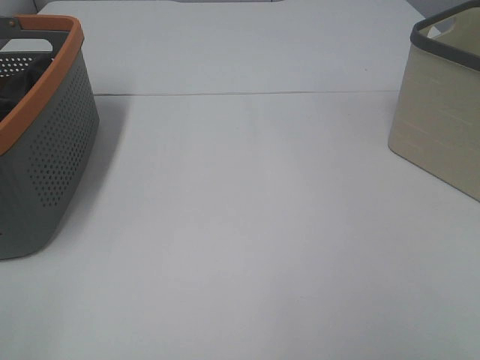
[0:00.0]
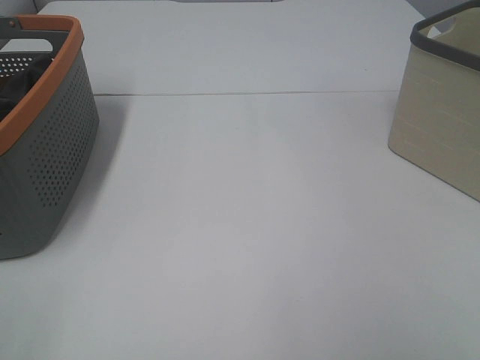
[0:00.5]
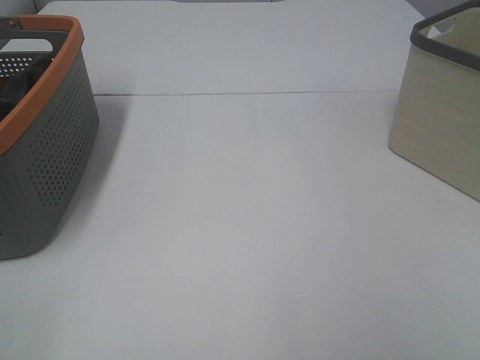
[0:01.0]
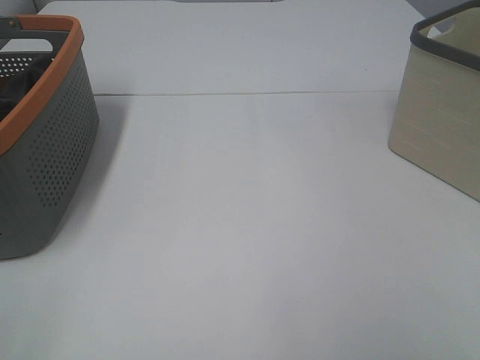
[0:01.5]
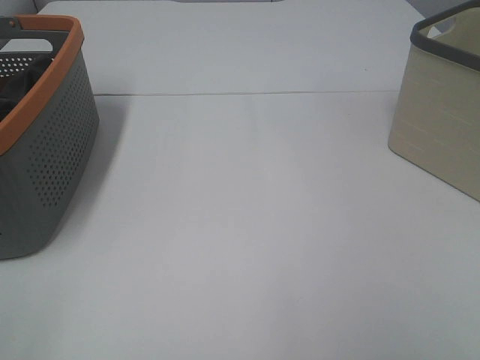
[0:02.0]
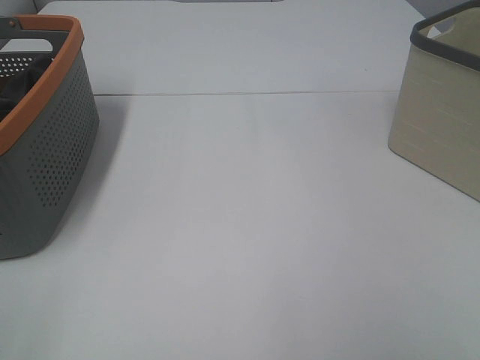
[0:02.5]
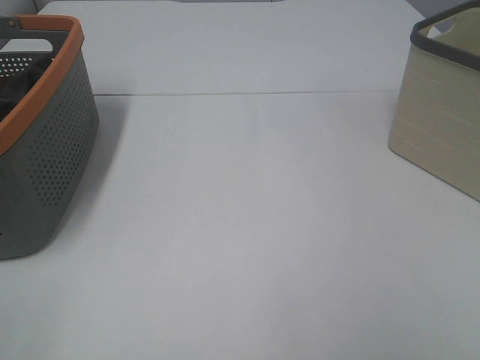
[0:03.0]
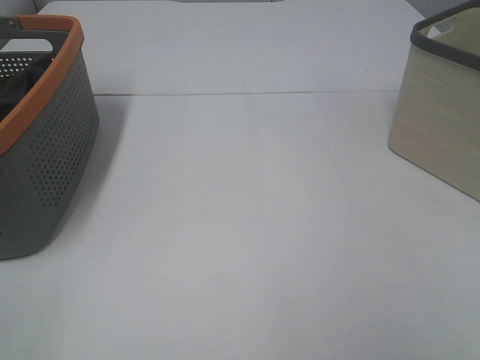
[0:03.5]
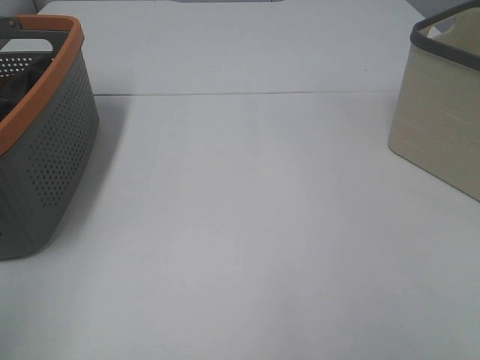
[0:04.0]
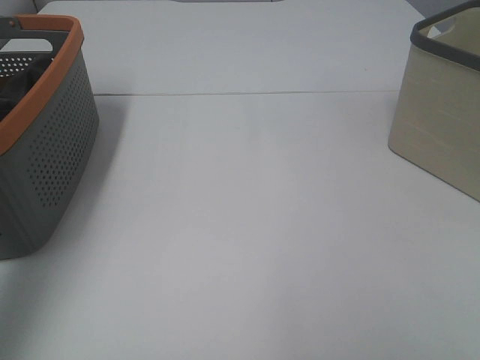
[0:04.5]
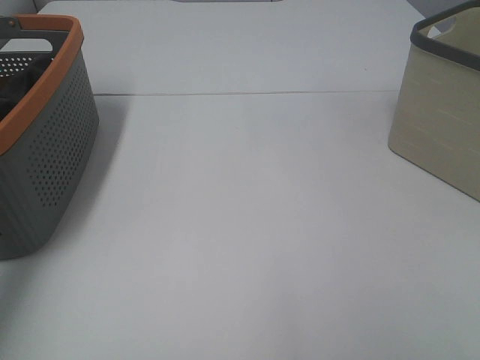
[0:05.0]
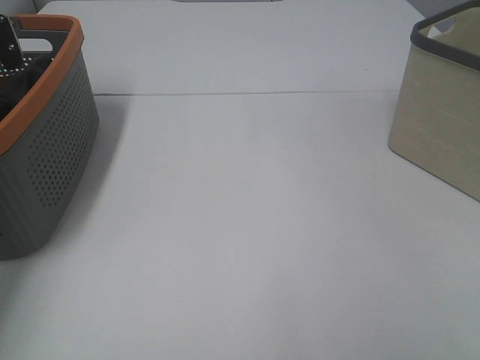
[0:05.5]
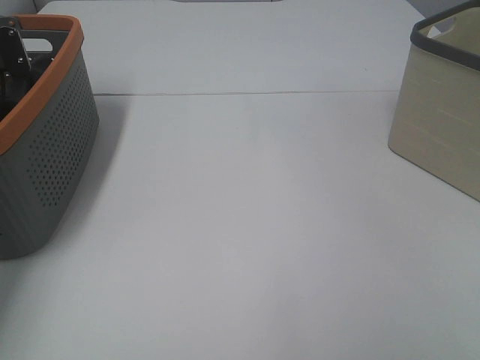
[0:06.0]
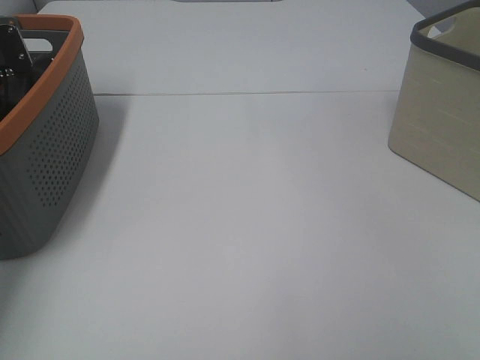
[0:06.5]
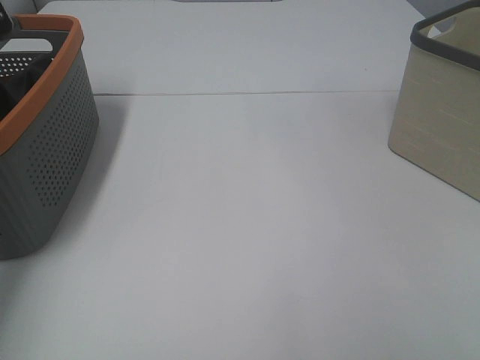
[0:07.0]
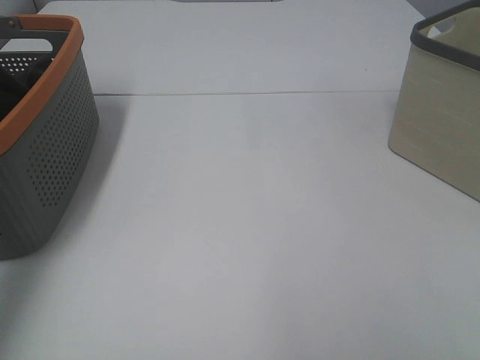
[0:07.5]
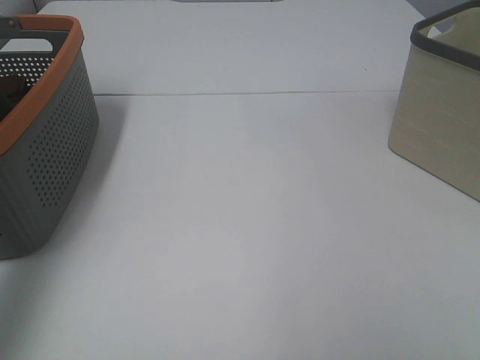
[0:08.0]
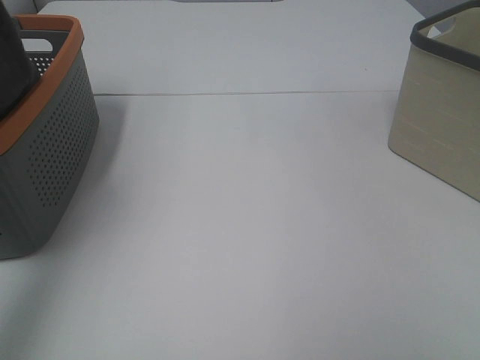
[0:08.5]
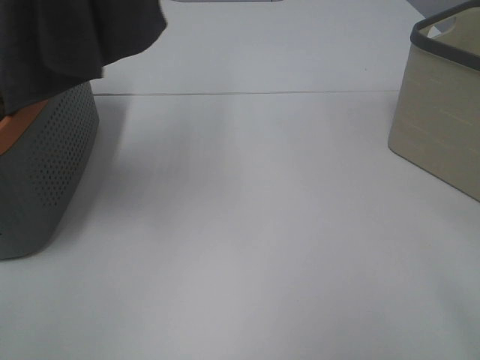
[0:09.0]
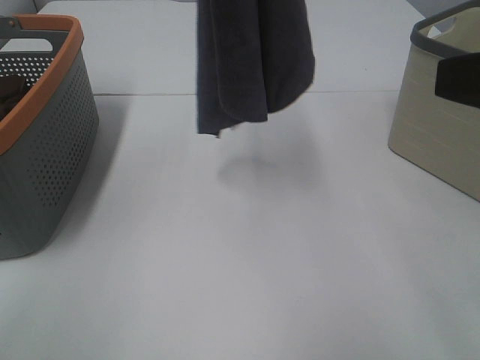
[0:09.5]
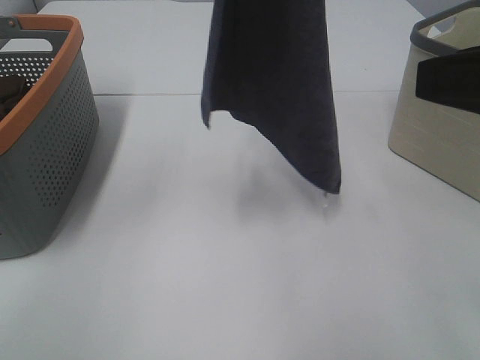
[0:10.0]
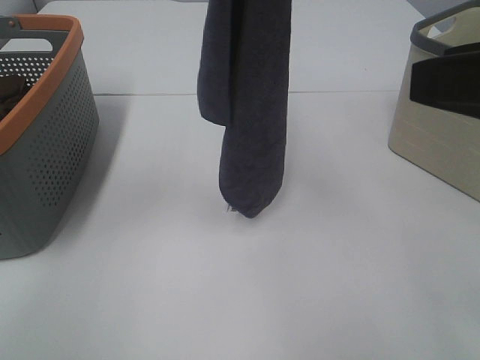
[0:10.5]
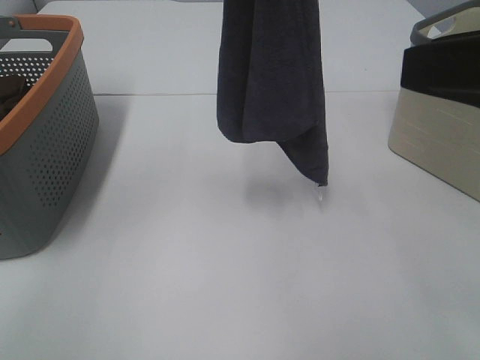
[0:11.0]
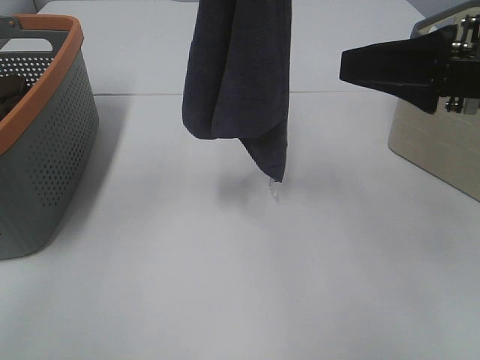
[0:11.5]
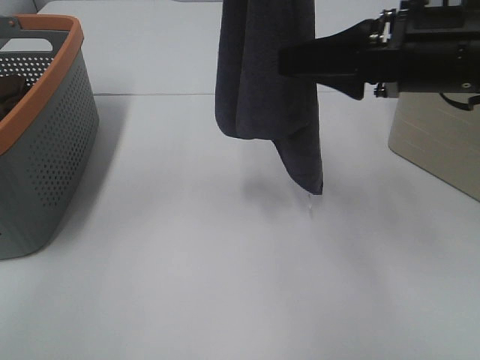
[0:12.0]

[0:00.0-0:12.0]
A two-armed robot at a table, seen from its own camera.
Task of the whole recording: Remove the towel and place it.
0:00.0 to 0:02.0: Both grippers stay about where they are.
0:04.0 to 0:06.0: The left gripper shifts some 40 cm forward and downward, and closes.
0:06.0 to 0:08.0: The left gripper moves upward and backward, roughly 35 cm, and closes its fingers.
0:08.0 to 0:10.0: The left gripper shifts about 30 cm to the right, while the right gripper goes roughly 15 cm forward.
0:10.0 to 0:12.0: The right gripper goes approximately 15 cm forward, downward and to the left.

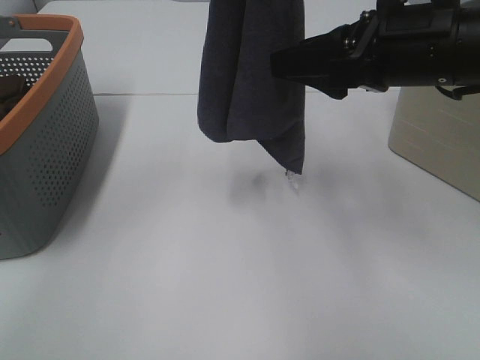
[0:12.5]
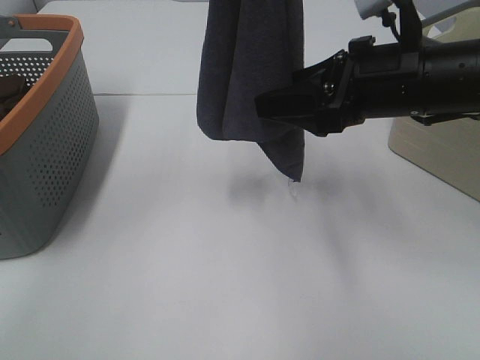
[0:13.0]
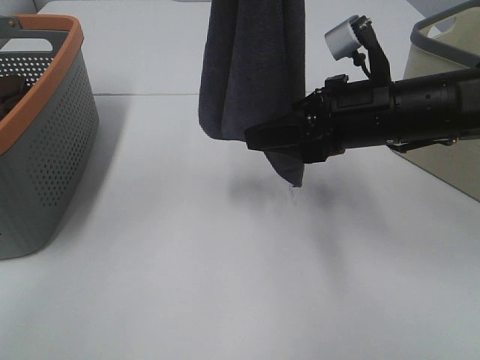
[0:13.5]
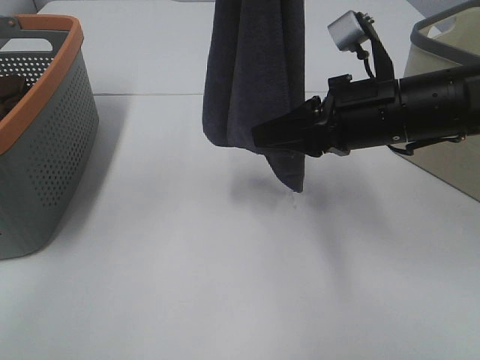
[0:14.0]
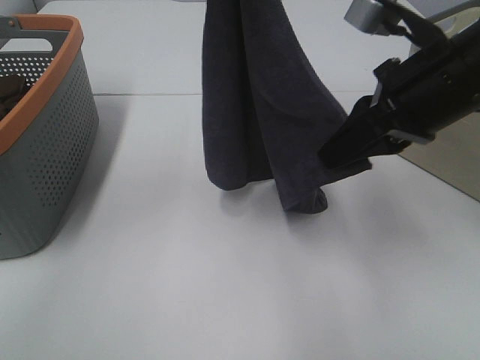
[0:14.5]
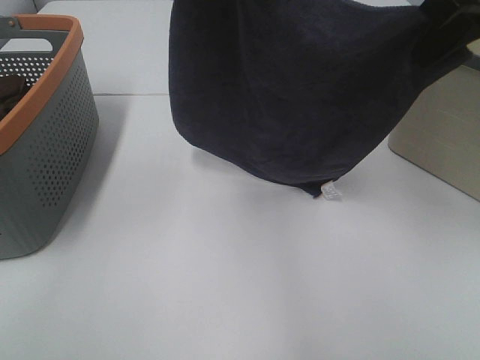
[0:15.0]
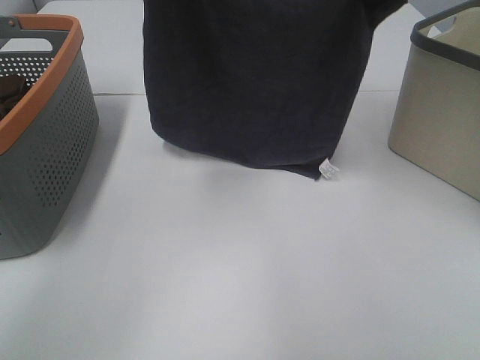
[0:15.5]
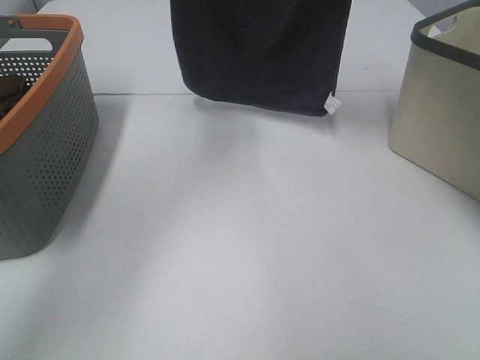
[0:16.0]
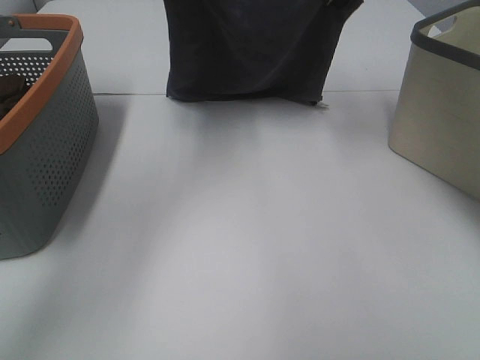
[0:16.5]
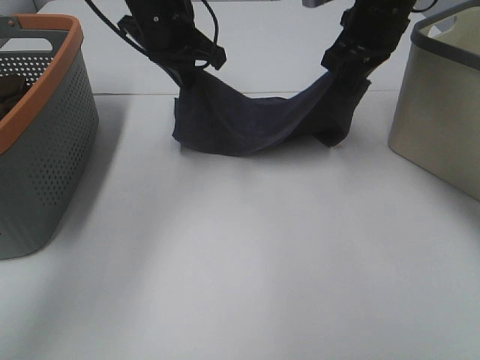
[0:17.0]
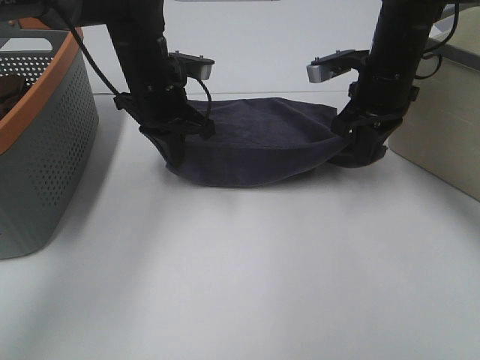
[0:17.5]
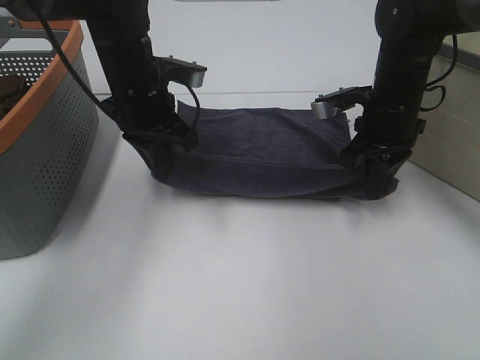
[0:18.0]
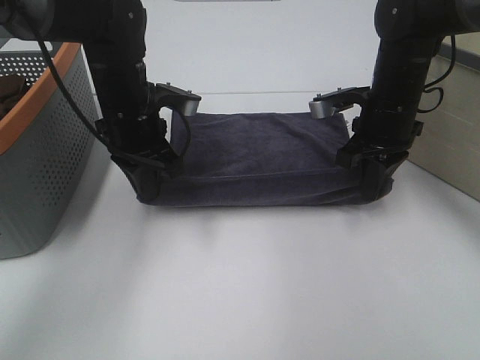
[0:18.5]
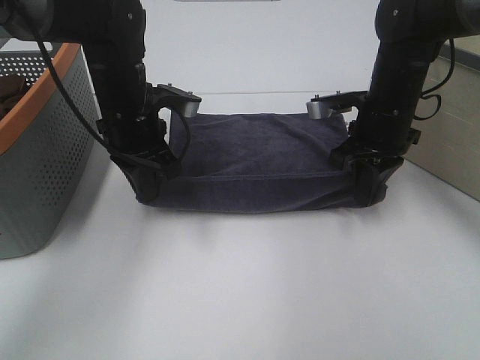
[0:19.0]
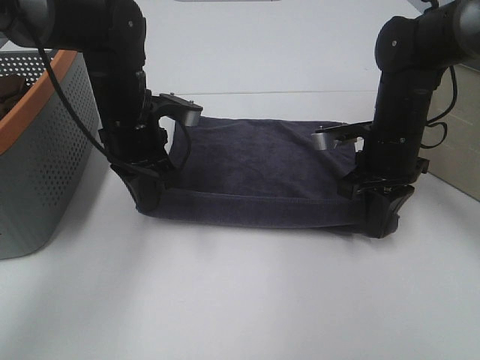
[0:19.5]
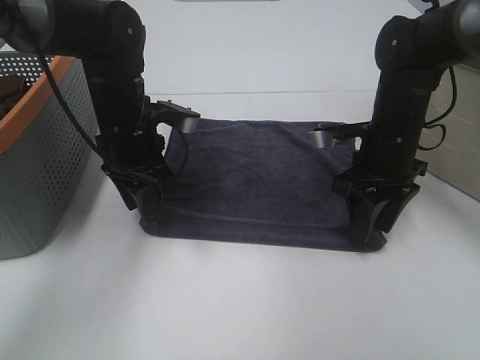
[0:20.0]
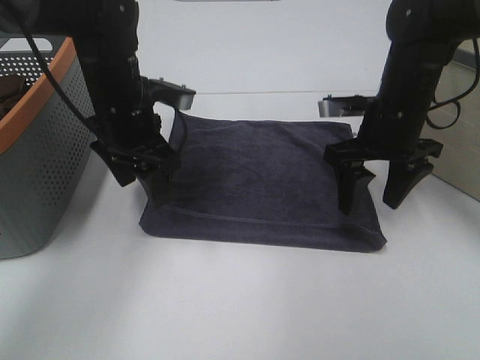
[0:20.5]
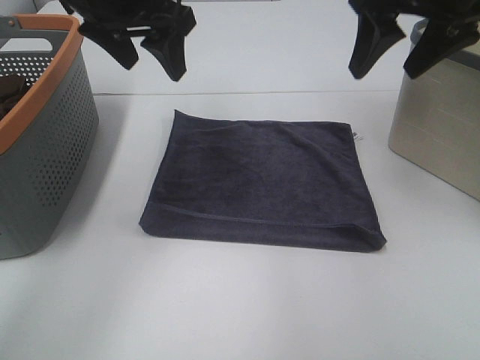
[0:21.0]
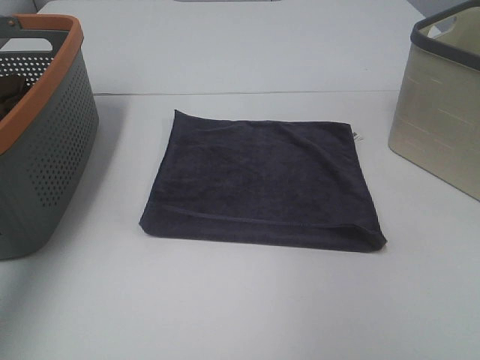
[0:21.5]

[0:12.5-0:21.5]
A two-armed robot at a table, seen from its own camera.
Task of the whole recording: Remove the towel and place it.
Step, 0:13.0 to 0:16.0: Left hand: spread the grey towel flat on the table.
Step, 0:13.0 to 0:16.0: Right hand: spread the grey towel flat on the table.
0:12.5 to 0:14.5: The right gripper closes its fingers, while the left gripper travels downward by approximately 5 cm.
0:14.5 to 0:17.0: The right gripper shifts approximately 20 cm forward. The left gripper goes about 25 cm downward and forward.
0:17.0 to 0:19.5: The two grippers go approximately 15 cm downward and backward.
0:19.5 to 0:21.5: The left gripper shifts some 35 cm upward and to the left, and opens up. The right gripper travels upward and to the right by about 30 cm, and opens.

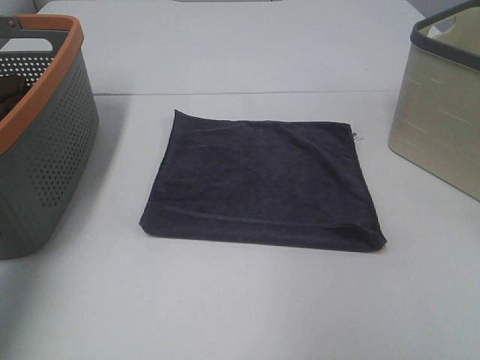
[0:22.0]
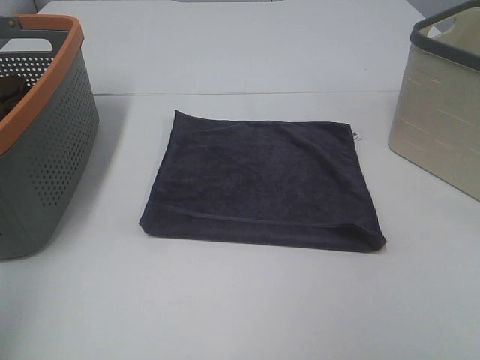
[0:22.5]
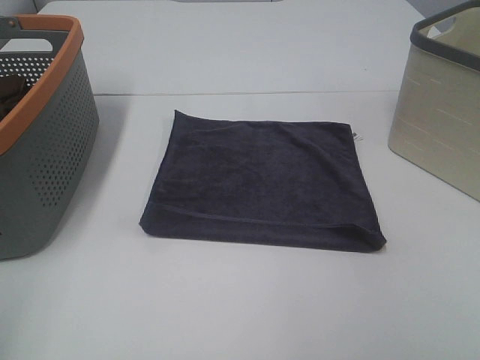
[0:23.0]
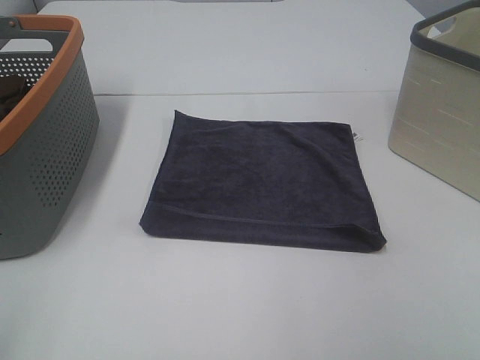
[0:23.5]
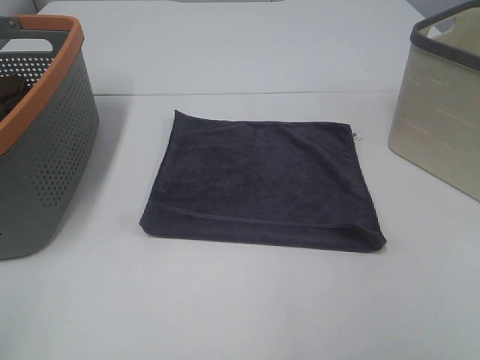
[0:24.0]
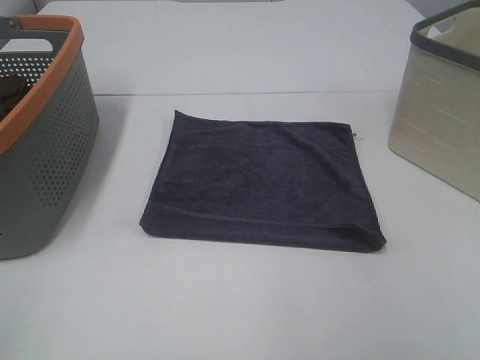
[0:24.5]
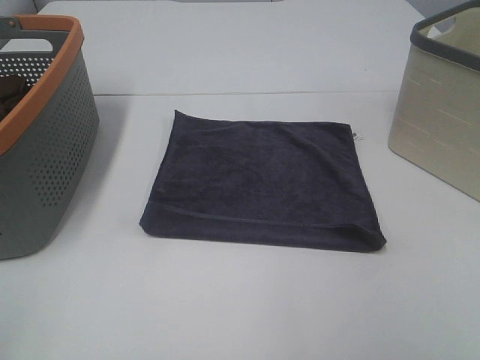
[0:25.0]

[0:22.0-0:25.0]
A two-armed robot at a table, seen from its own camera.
Task of the whole recording: Remove the towel and place it.
0:22.0 to 0:23.5: The left gripper heads backward and downward, covering some 25 cm.

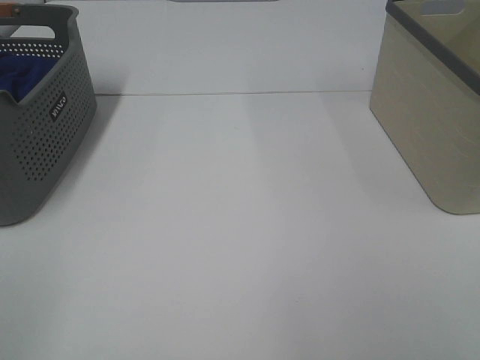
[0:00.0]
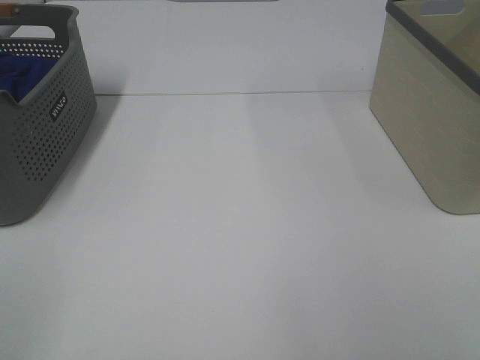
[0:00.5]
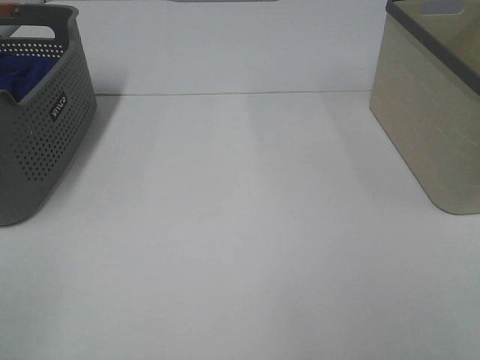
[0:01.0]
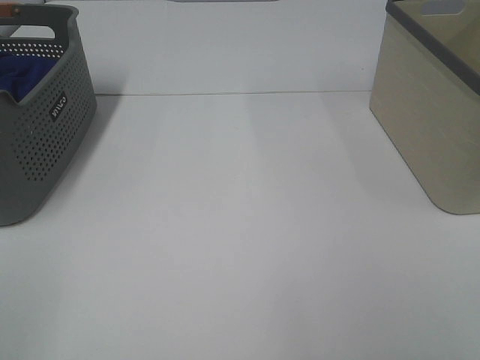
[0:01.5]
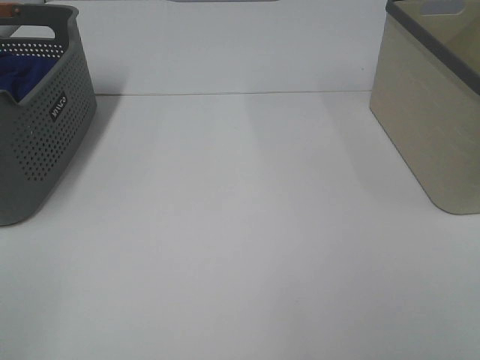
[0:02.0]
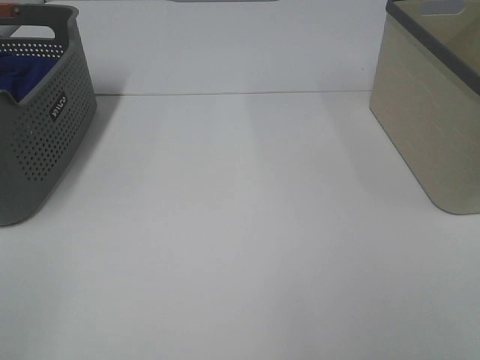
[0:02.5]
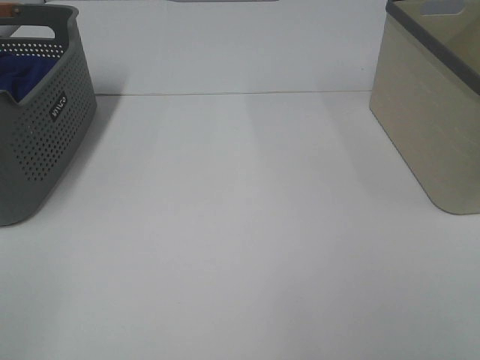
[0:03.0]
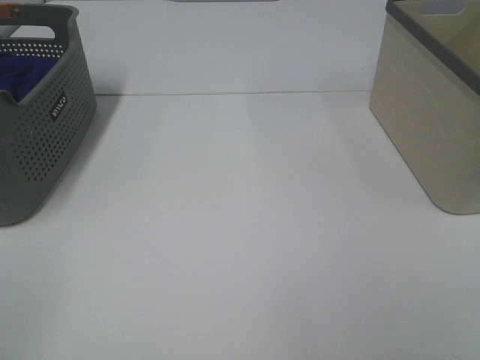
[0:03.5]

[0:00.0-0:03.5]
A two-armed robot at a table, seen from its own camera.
Task of the whole recording: Remove the towel and place it.
0:00.0 to 0:03.5: Both grippers stay about where they are.
